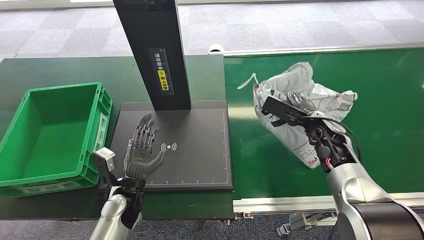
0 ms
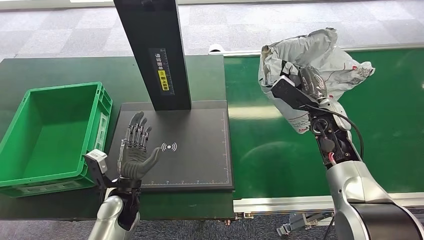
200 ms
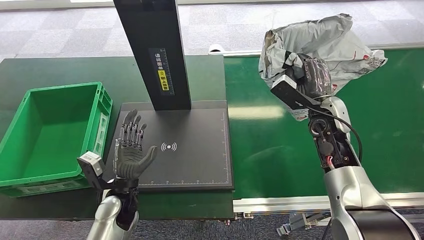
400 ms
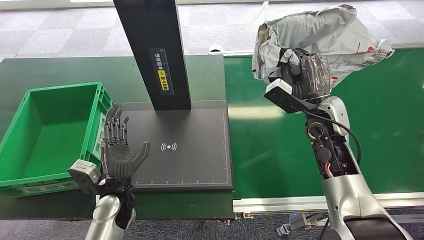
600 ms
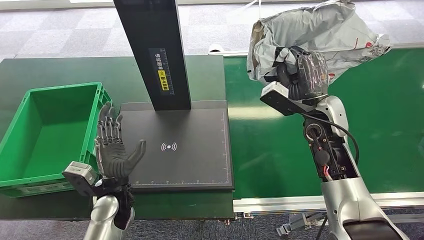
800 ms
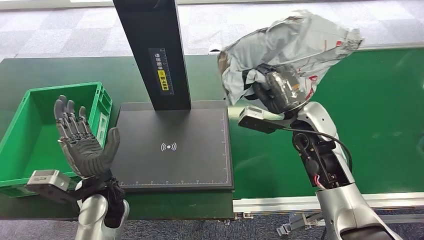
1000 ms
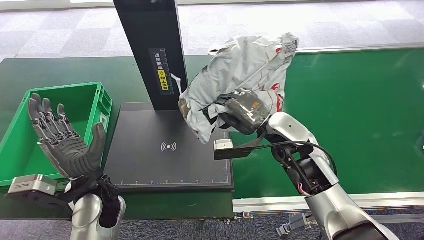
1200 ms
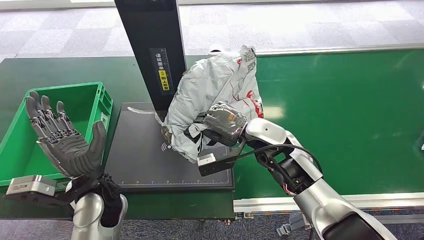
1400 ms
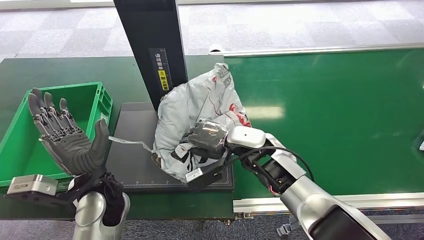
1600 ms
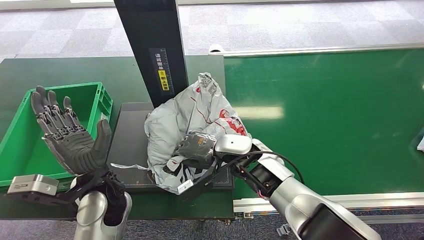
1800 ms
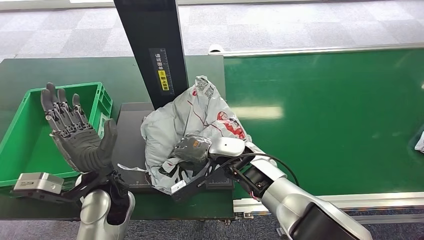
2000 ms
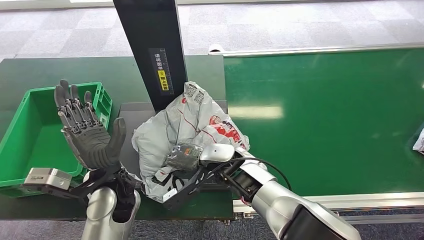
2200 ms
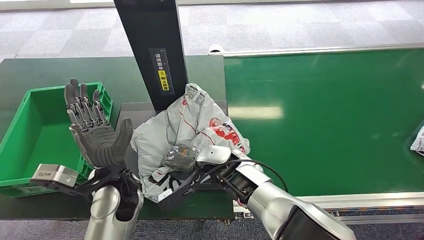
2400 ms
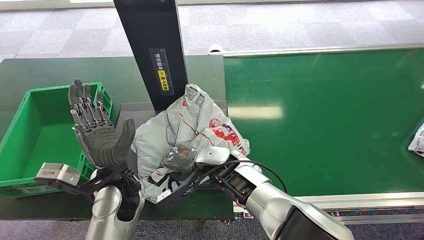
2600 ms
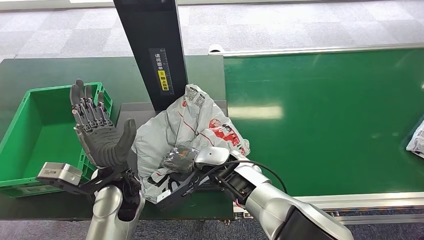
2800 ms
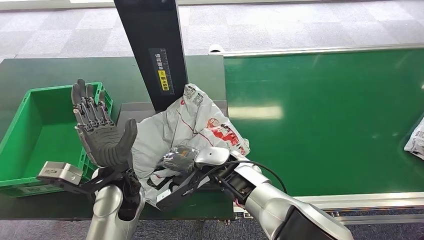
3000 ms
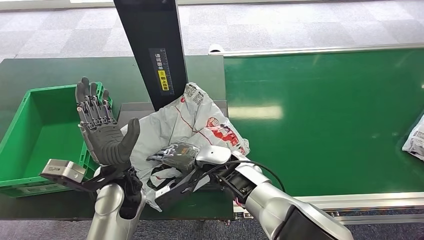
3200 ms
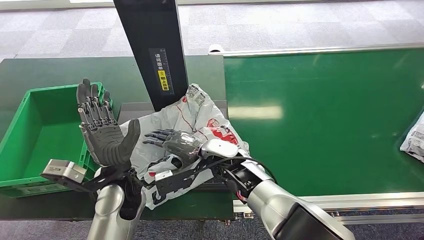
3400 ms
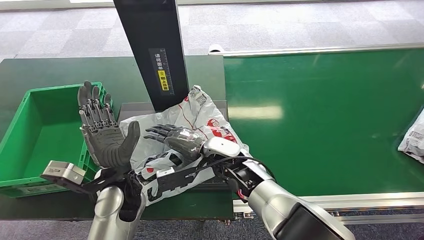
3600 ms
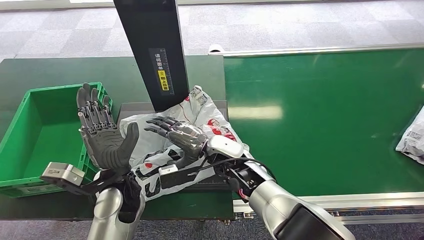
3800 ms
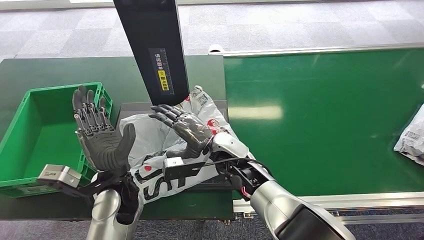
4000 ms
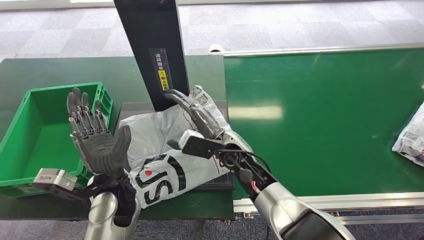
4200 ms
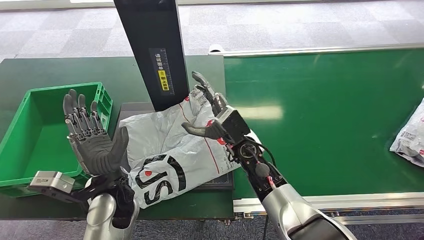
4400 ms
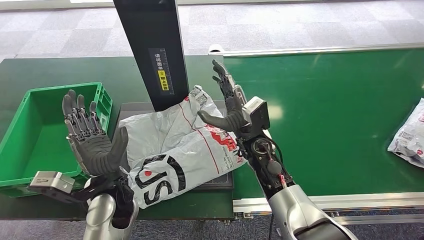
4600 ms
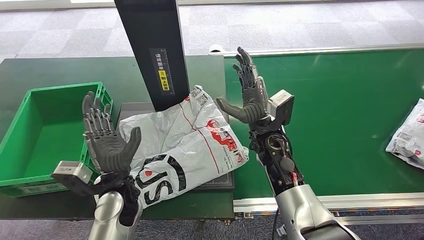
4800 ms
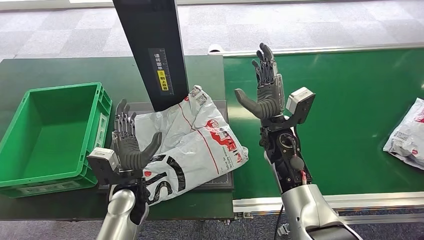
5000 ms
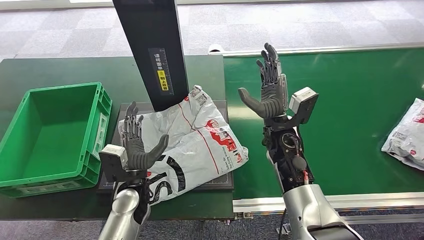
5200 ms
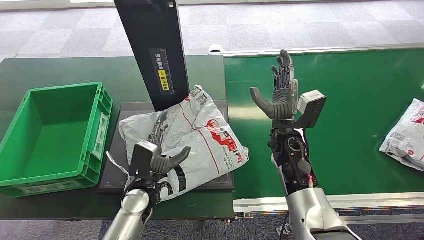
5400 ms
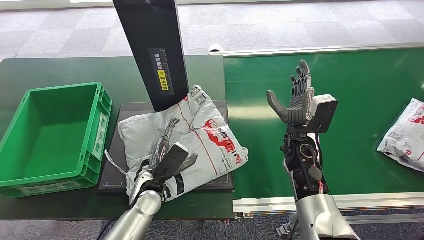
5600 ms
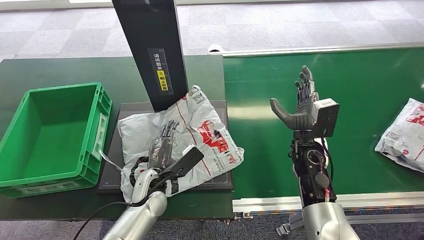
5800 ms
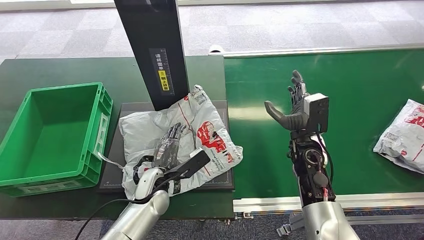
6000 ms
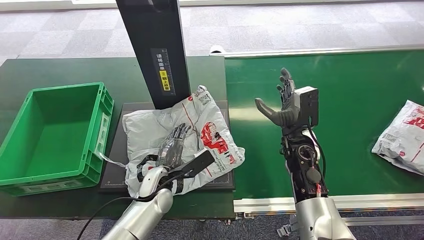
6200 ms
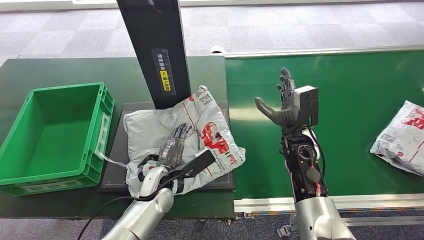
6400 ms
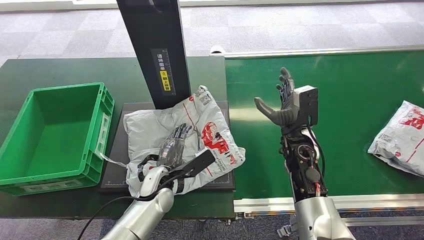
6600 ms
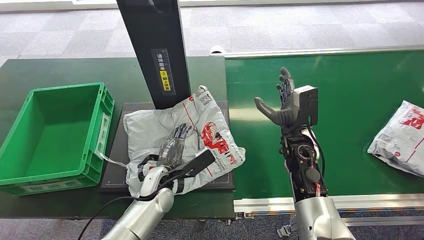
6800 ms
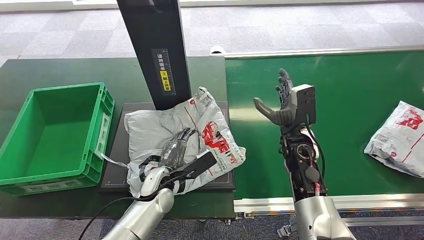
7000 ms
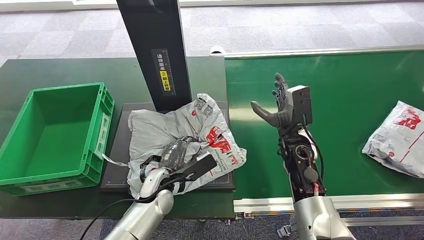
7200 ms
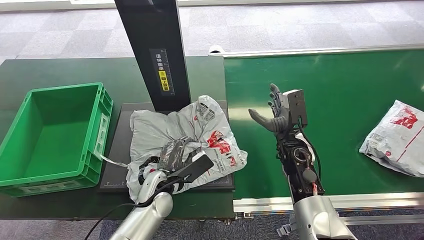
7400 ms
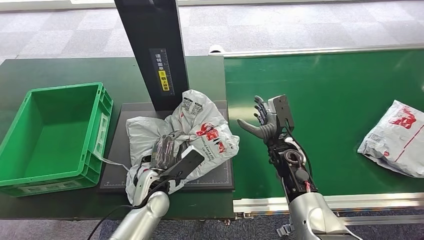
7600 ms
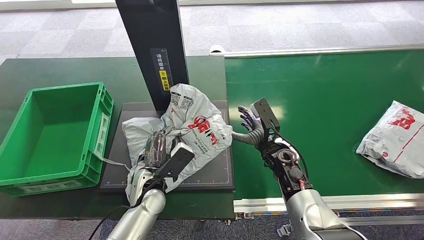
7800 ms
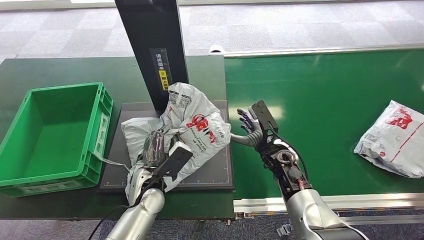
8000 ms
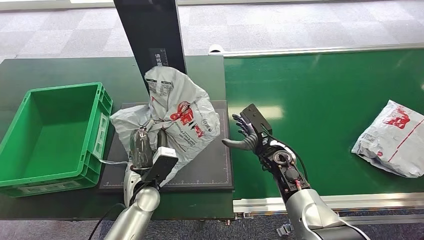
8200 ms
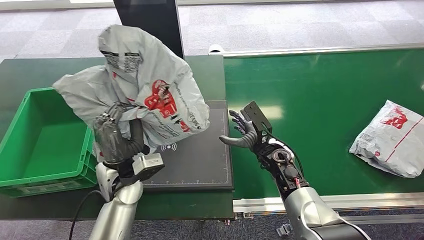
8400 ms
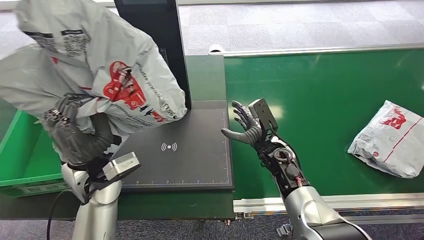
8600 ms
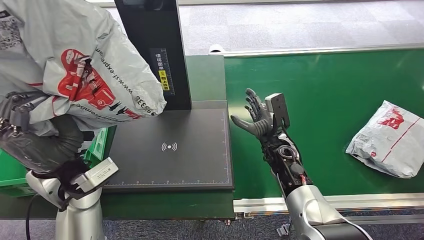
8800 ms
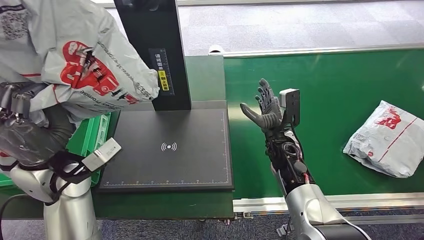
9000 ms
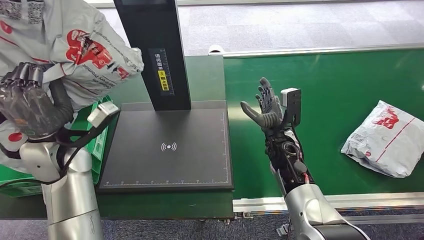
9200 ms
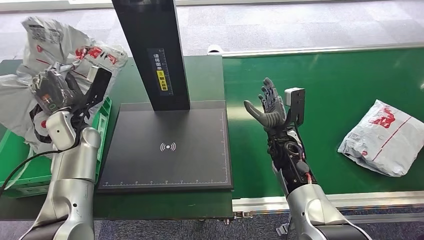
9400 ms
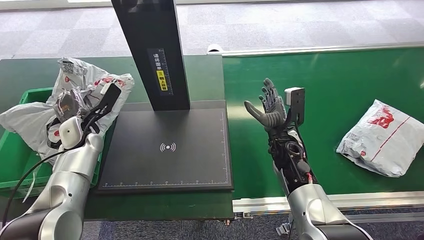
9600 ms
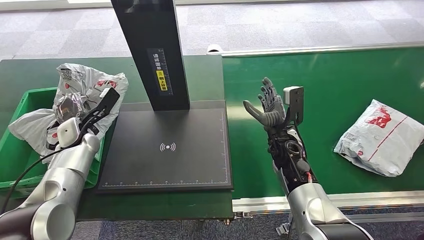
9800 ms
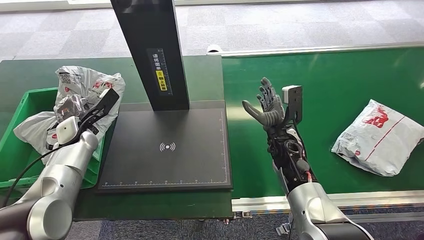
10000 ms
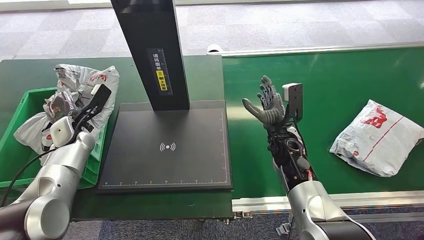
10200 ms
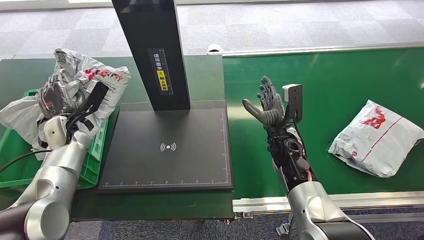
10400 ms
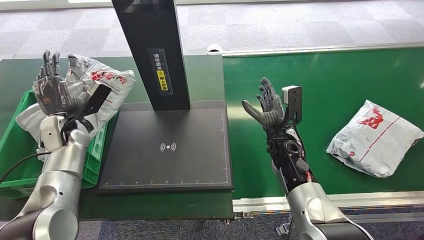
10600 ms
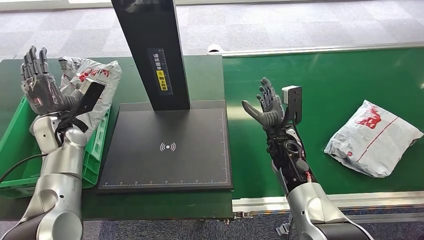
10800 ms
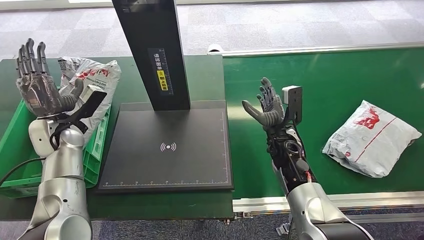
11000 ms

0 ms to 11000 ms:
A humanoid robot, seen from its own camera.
Task of the whole recording: Weigh the package on the weighing device and place it in the left basket.
Step, 1200 ms to 4400 ms: Place the package onto the inbound machine.
Step, 4600 ms to 8600 ms: Pick up the package from the inbound machine.
Step, 8800 ms to 11000 ms: Place the package into the parcel locker.
6200 ms to 7800 ms: The right hand shifts by some 5 cm.
